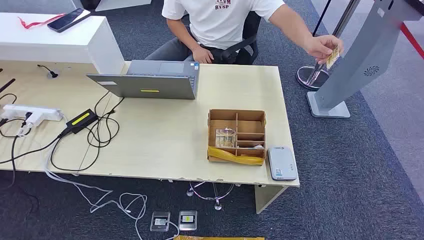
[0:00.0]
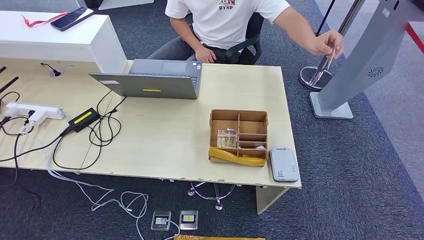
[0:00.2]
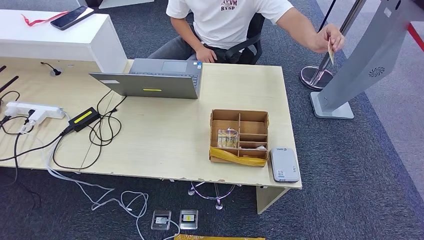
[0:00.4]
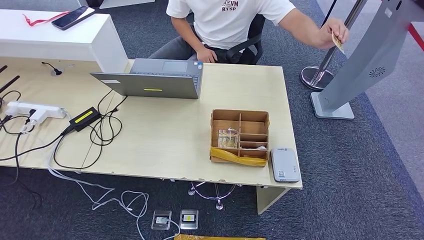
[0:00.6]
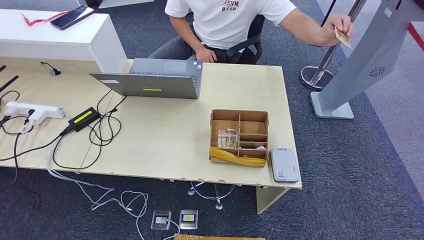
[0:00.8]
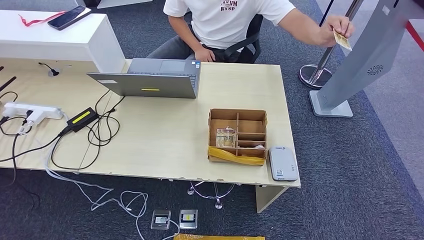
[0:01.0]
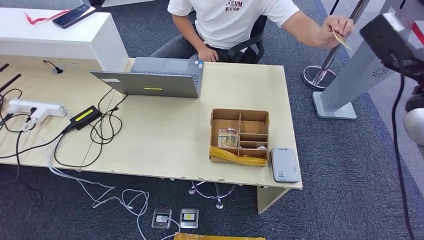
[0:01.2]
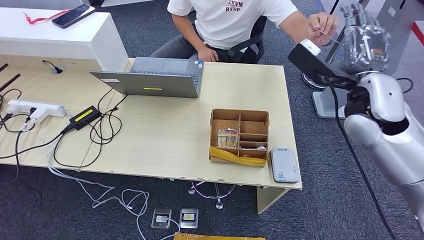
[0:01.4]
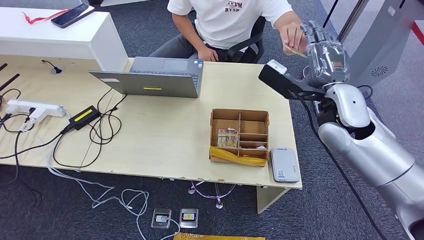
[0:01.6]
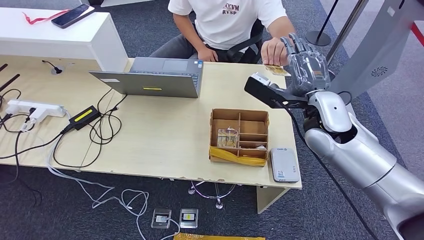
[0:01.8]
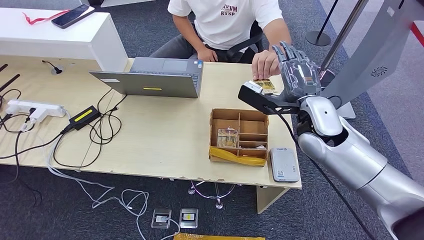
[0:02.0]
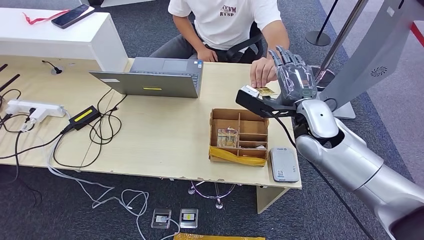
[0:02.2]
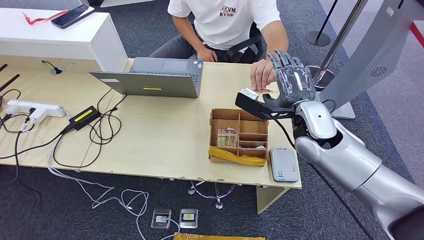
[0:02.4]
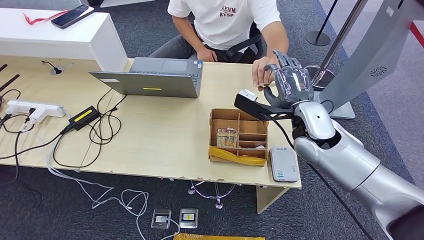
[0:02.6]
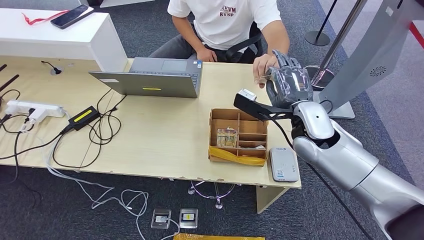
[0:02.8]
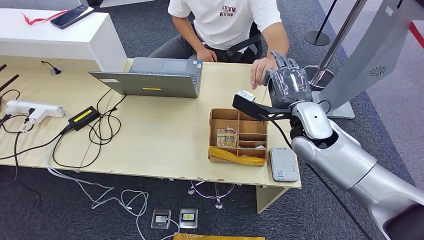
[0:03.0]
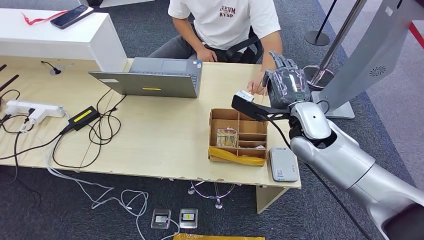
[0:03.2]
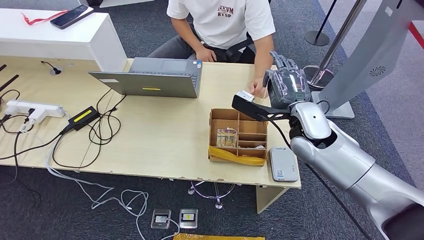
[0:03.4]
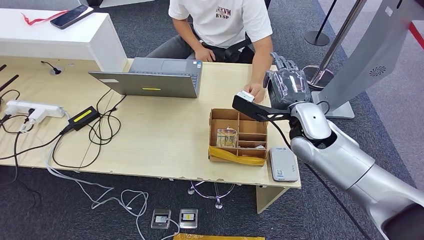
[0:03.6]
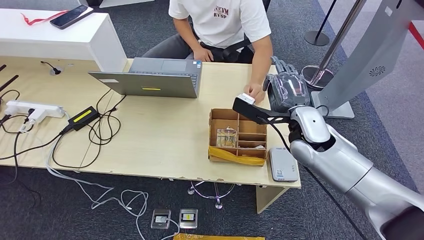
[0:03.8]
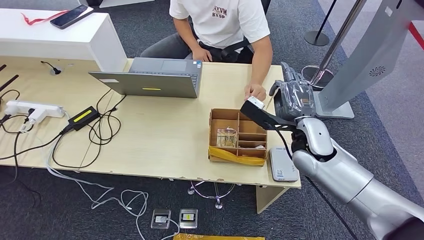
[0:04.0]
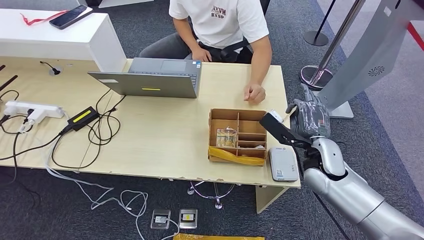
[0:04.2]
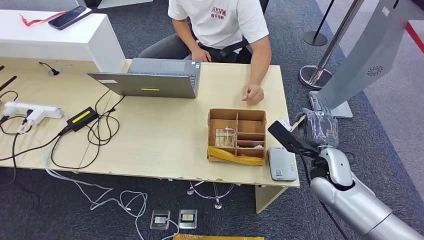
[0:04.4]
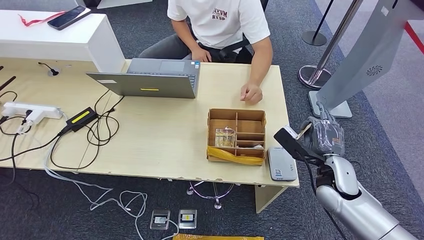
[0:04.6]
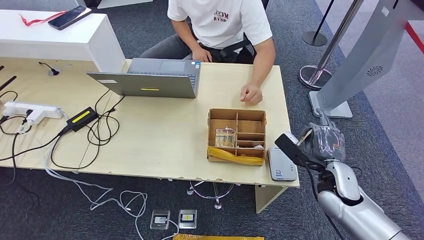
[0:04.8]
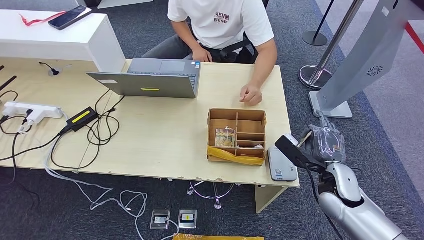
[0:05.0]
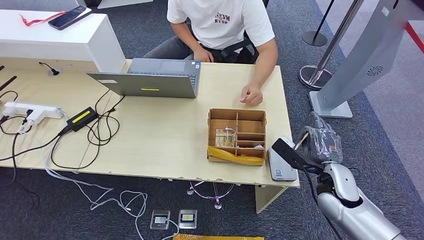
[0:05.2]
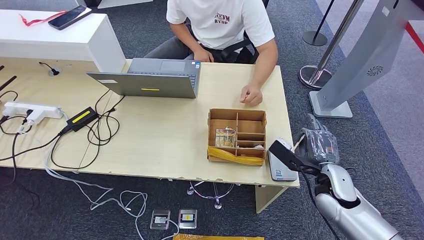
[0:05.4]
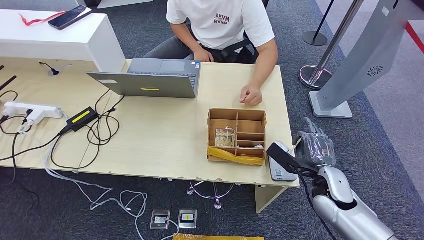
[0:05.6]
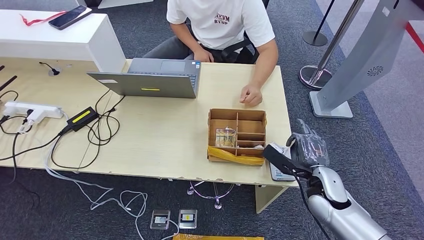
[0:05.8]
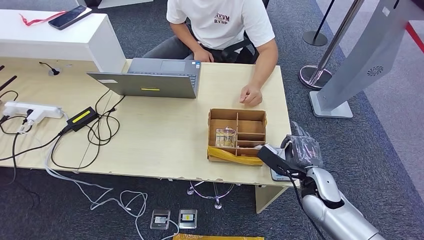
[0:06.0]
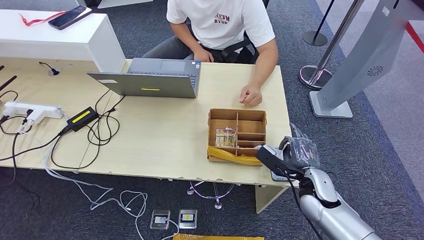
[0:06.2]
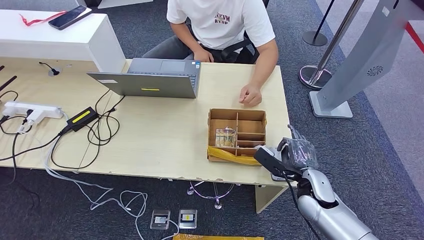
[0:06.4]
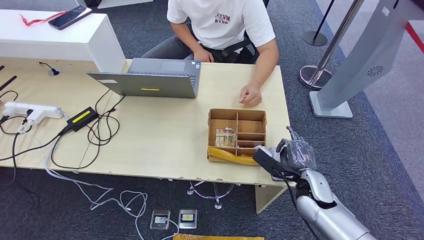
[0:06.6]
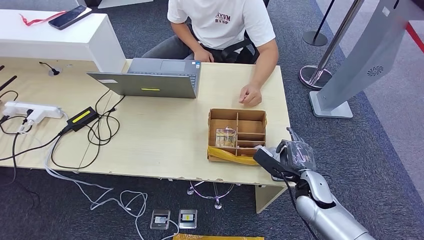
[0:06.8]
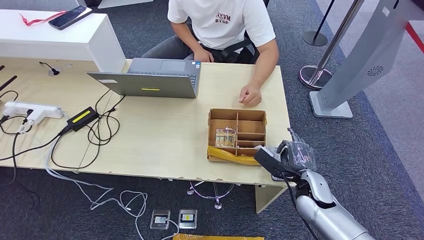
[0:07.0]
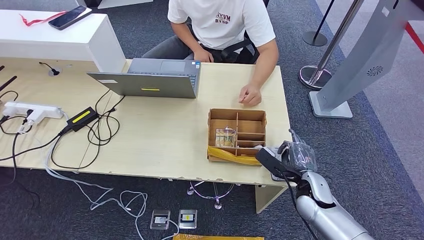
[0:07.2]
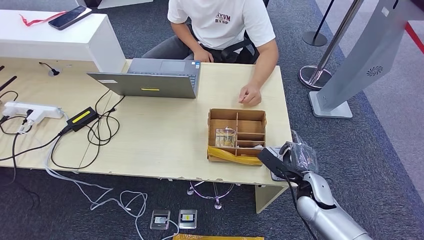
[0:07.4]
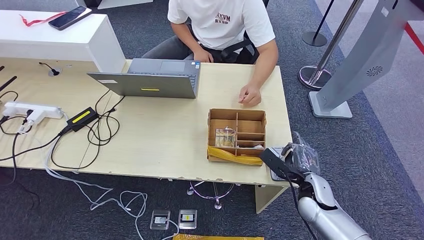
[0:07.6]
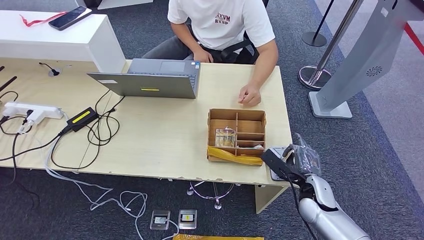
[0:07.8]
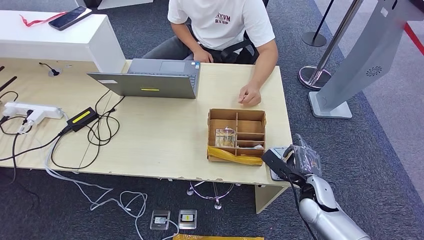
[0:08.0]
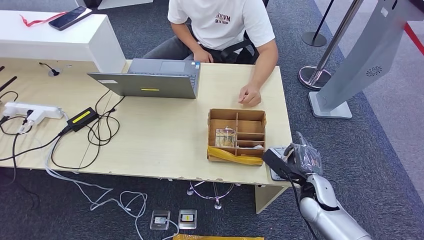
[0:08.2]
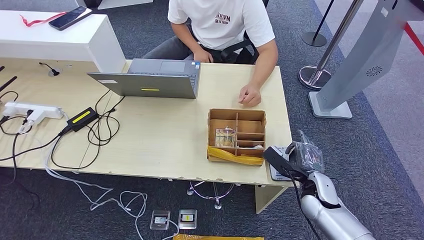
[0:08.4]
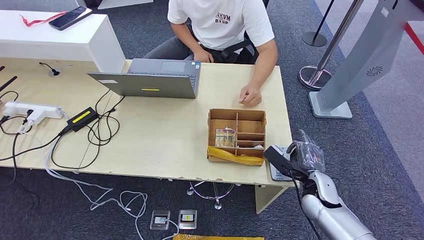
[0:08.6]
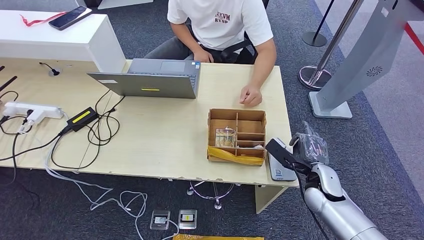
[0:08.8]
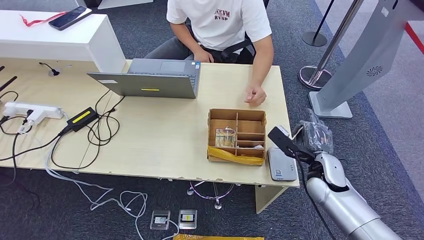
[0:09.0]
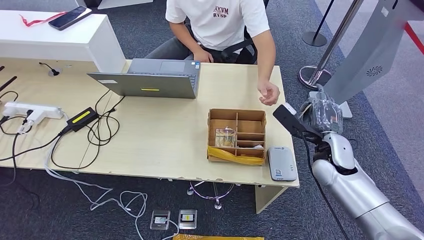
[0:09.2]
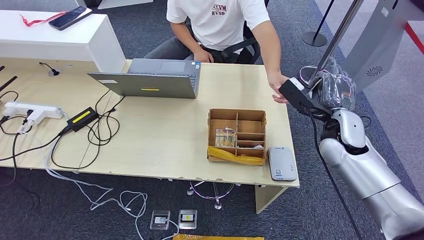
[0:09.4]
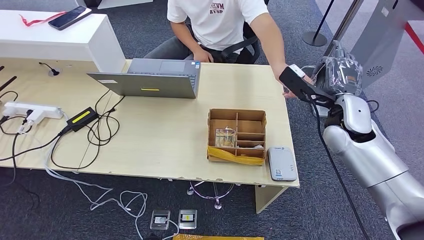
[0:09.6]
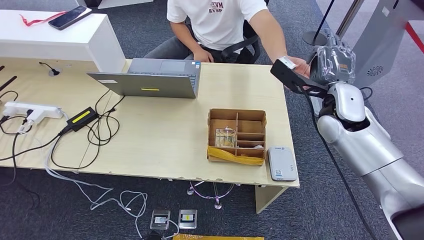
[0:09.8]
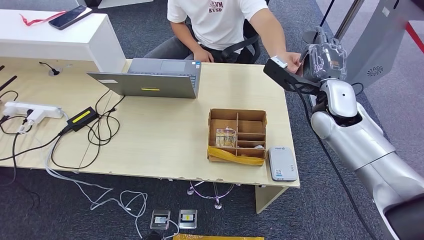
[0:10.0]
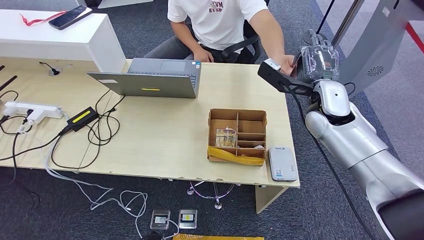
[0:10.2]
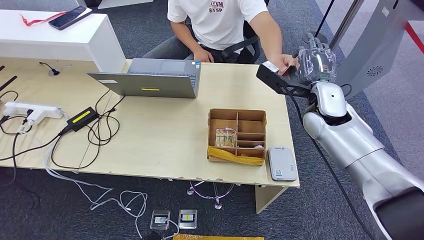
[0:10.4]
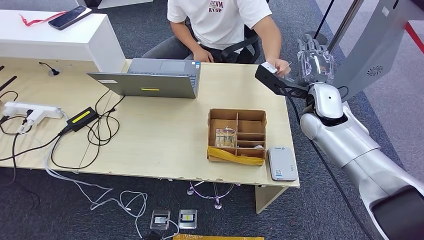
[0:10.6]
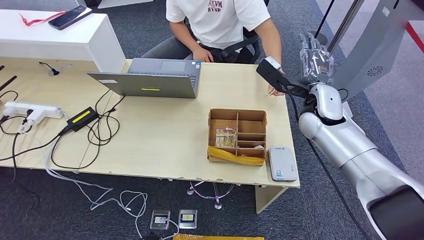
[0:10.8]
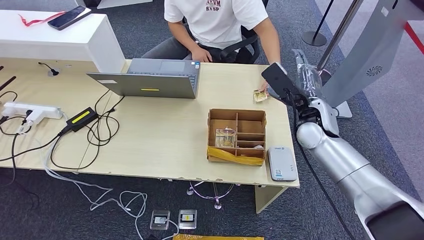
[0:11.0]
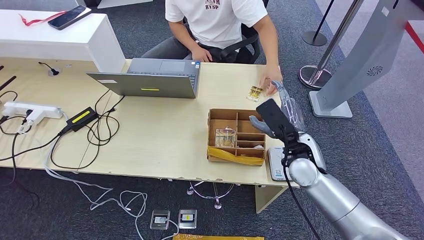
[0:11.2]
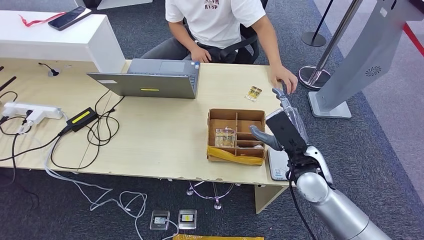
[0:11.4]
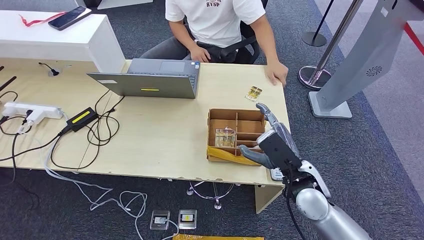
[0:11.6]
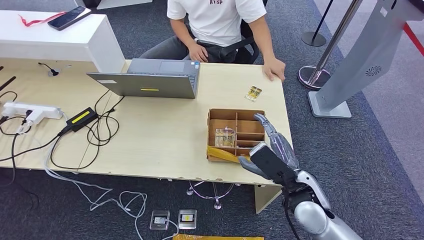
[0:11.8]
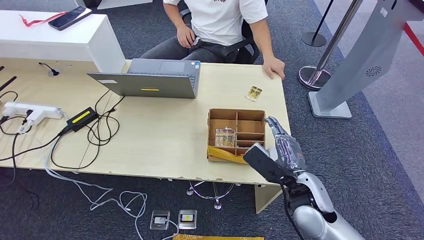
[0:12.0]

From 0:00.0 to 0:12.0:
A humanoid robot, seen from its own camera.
Step, from 0:00.0 to 0:03.8: Take the ID card from the person's hand.
Step, from 0:04.0 to 0:07.0: Place the ID card on the card reader.
Step, from 0:07.2 to 0:11.0: Hand the ID card to the person.
From 0:04.4 to 0:06.0: The right hand shifts about 5 cm downward.
From 0:06.0 to 0:07.6: There are only small adjustments of the hands.
From 0:07.6 to 0:09.0: The right hand heads upward, covering about 5 cm.
From 0:09.0 to 0:10.4: The right hand heads upward and forward, covering roughly 20 cm.
From 0:10.4 to 0:12.0: The right hand shifts roughly 20 cm backward and downward.

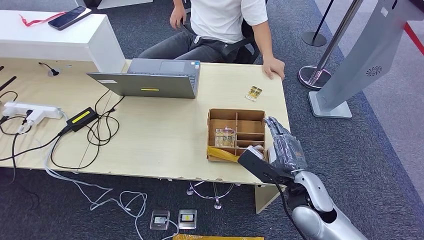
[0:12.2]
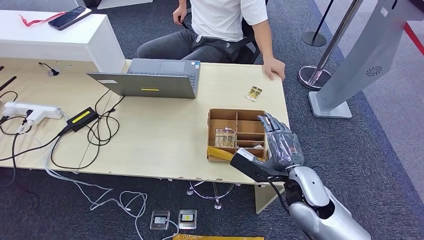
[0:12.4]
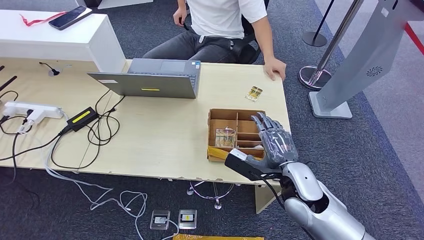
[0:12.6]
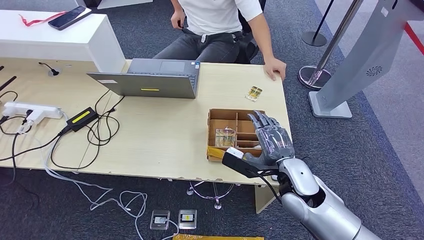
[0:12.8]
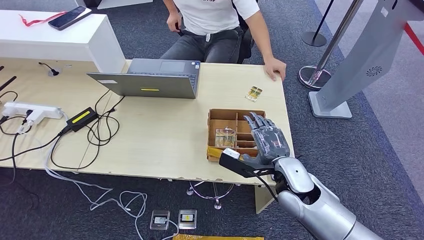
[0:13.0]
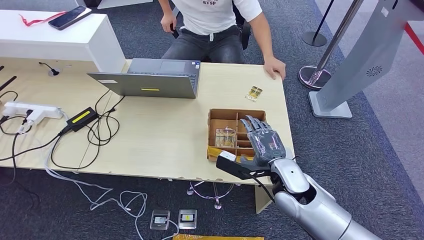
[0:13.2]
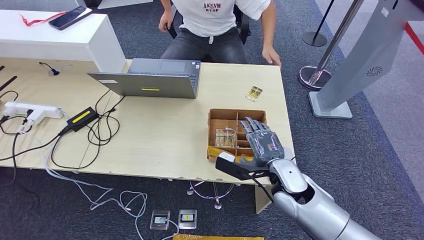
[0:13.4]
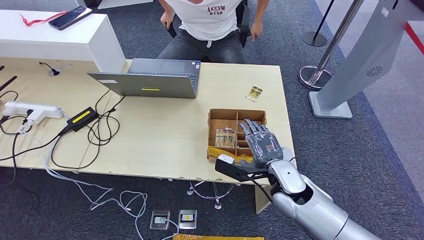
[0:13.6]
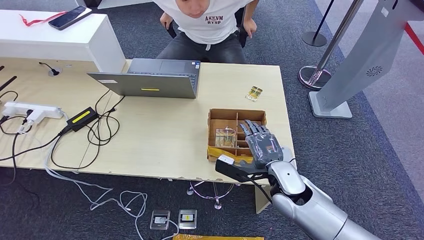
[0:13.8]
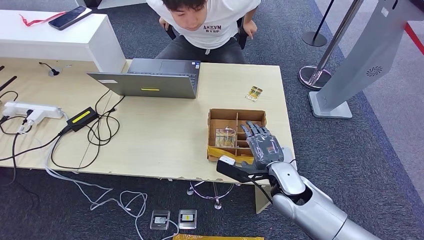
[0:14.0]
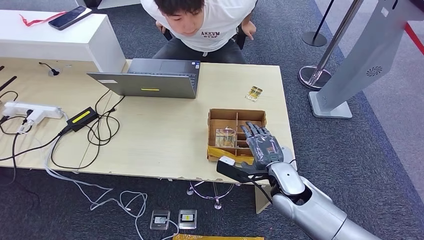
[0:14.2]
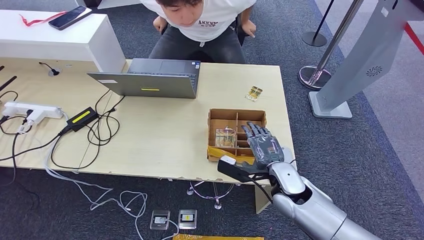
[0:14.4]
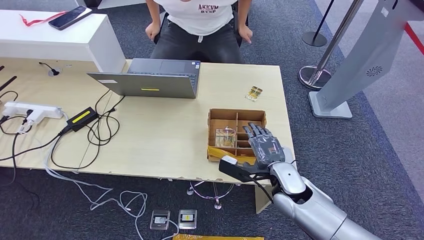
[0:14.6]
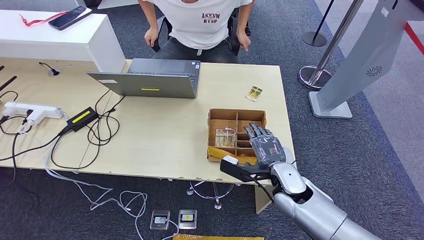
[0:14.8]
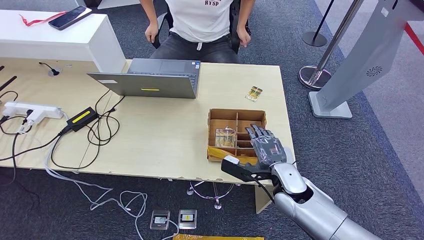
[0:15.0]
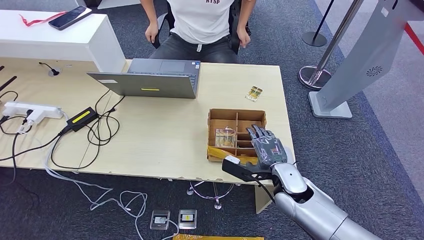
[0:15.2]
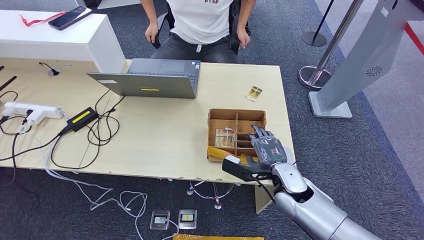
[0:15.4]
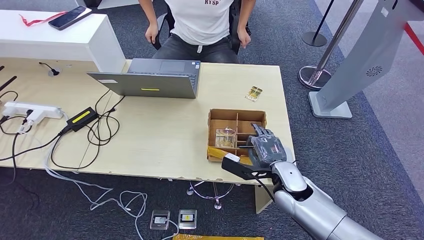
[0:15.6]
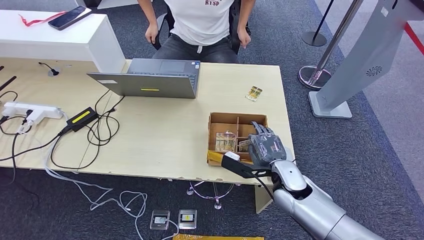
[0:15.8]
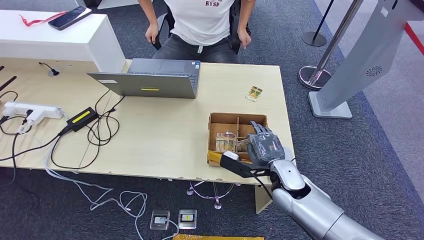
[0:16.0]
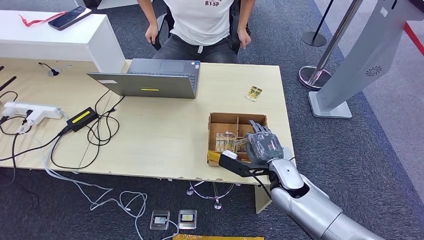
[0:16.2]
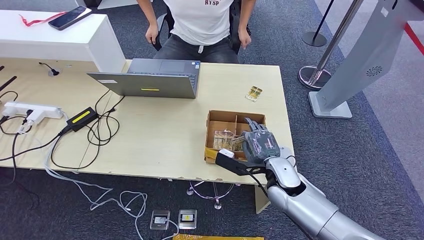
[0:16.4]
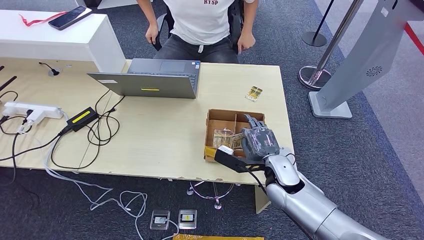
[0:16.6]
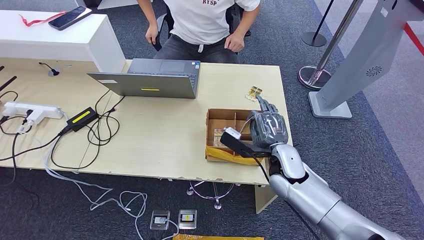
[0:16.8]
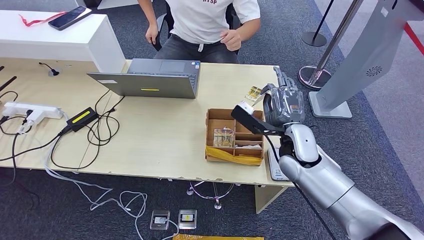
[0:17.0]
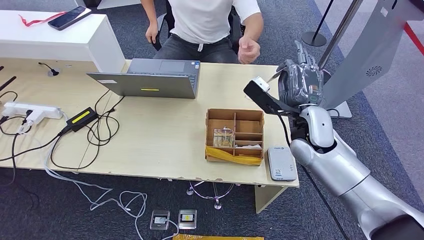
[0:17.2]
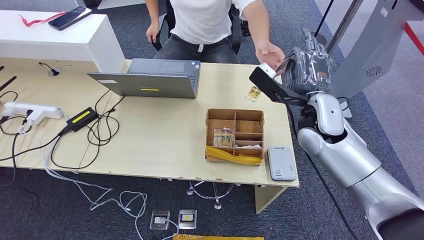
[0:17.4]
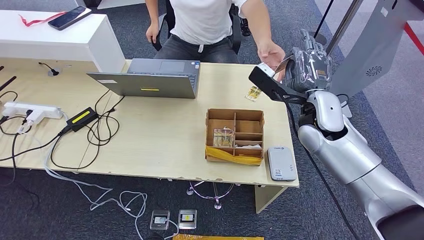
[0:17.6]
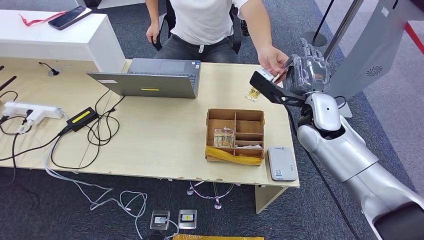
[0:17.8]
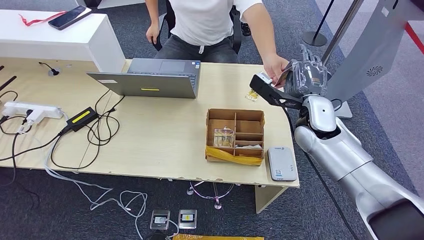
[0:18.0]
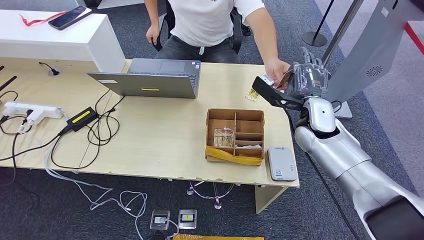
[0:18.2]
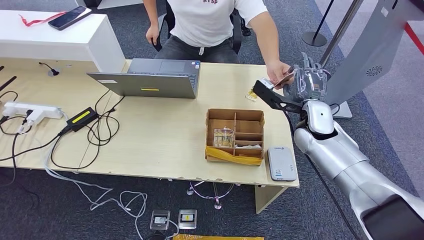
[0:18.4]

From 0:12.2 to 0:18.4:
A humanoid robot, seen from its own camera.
Step, from 0:12.8 to 0:17.2: Pick up the room key from the key card box.
Step, from 0:17.6 to 0:18.4: Hand the room key to the person.
From 0:12.2 to 0:13.8: The right hand changes place by about 5 cm.
From 0:13.8 to 0:16.8: There are only small adjustments of the hands.
From 0:16.8 to 0:18.4: The right hand travels upward, forward and to the right by roughly 15 cm.
